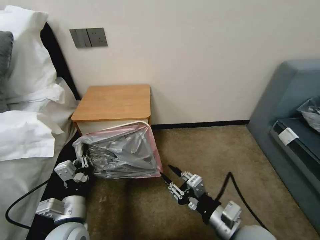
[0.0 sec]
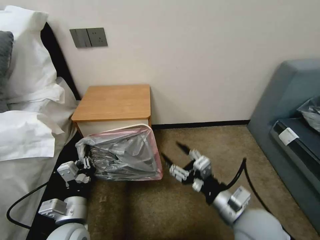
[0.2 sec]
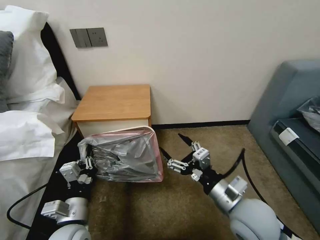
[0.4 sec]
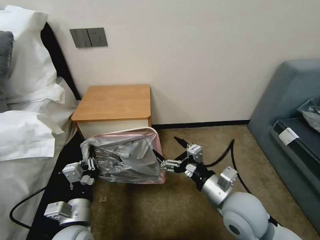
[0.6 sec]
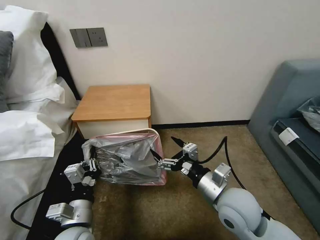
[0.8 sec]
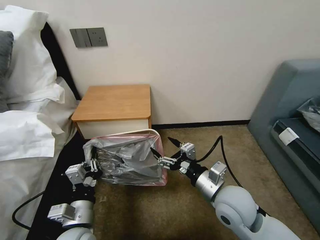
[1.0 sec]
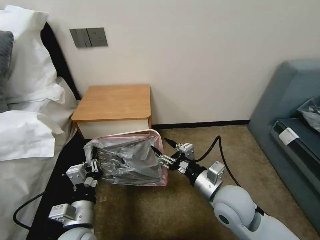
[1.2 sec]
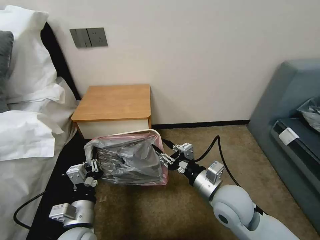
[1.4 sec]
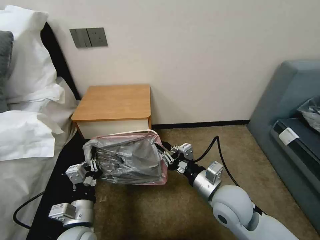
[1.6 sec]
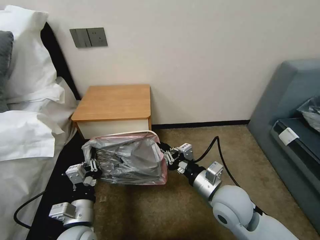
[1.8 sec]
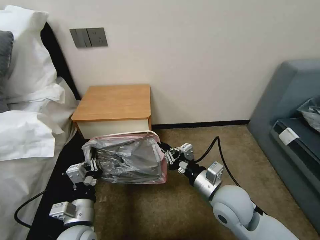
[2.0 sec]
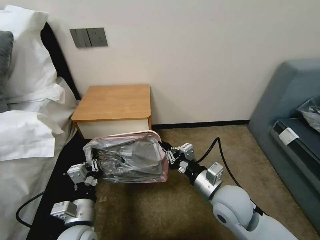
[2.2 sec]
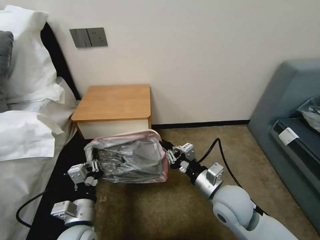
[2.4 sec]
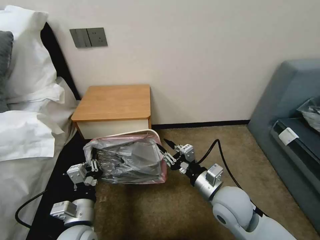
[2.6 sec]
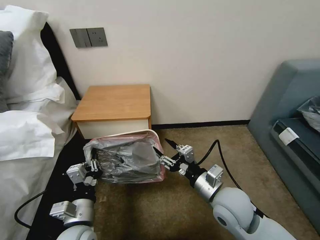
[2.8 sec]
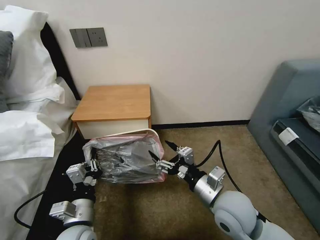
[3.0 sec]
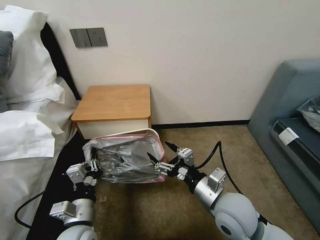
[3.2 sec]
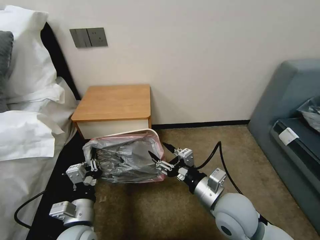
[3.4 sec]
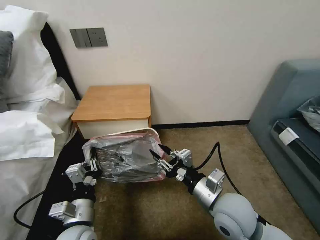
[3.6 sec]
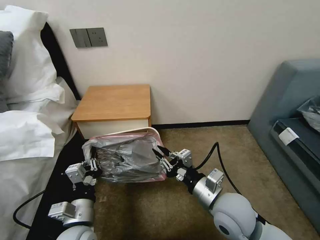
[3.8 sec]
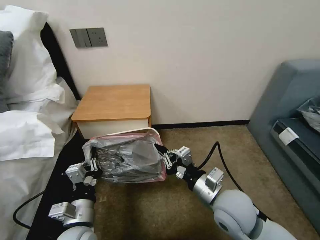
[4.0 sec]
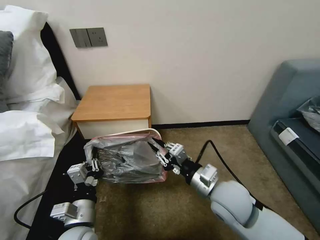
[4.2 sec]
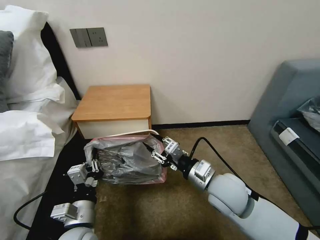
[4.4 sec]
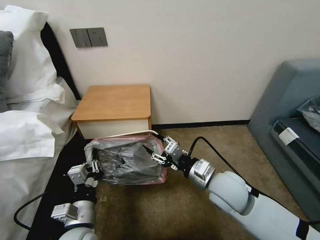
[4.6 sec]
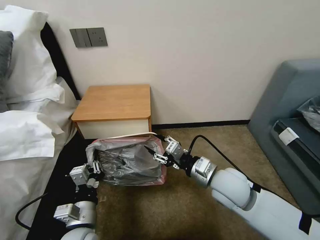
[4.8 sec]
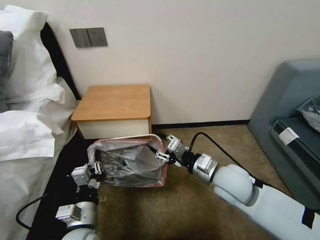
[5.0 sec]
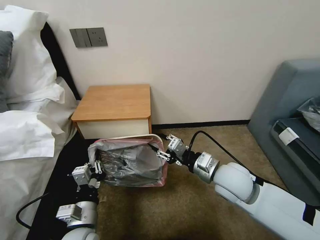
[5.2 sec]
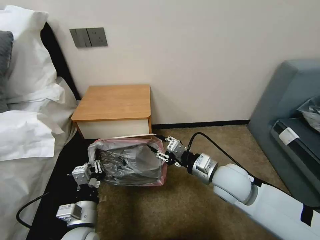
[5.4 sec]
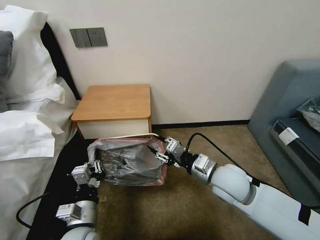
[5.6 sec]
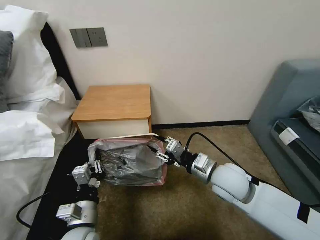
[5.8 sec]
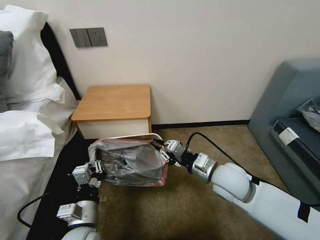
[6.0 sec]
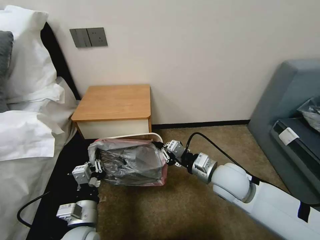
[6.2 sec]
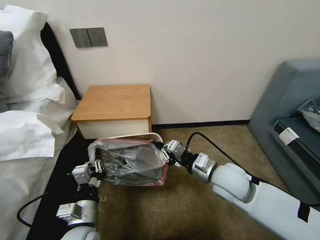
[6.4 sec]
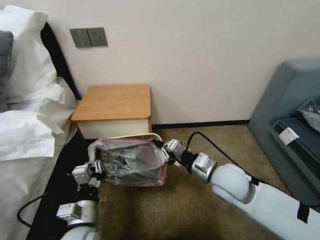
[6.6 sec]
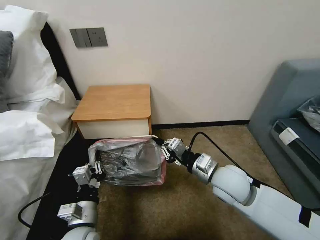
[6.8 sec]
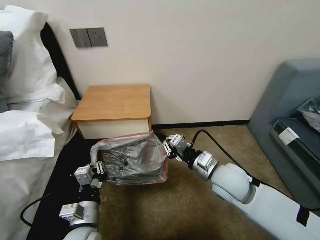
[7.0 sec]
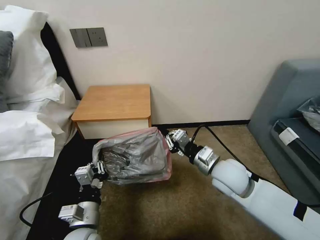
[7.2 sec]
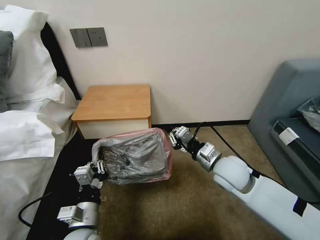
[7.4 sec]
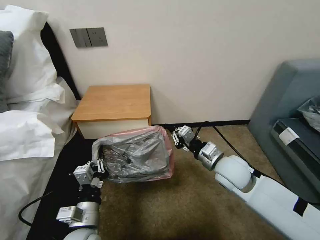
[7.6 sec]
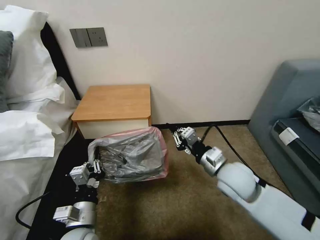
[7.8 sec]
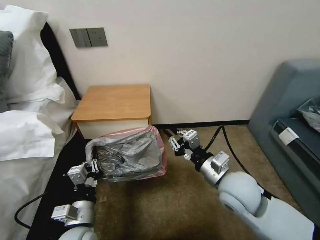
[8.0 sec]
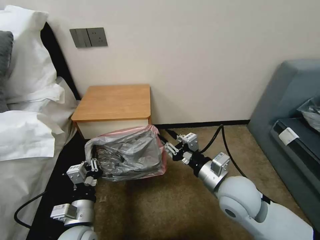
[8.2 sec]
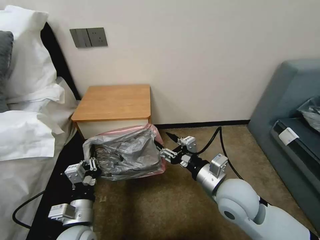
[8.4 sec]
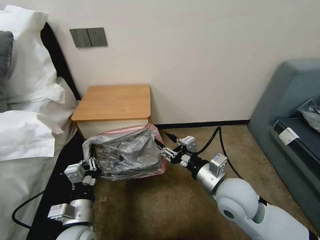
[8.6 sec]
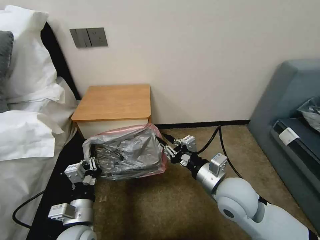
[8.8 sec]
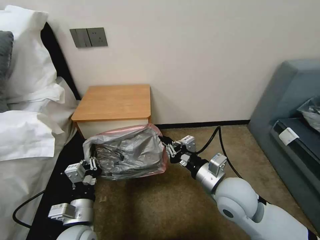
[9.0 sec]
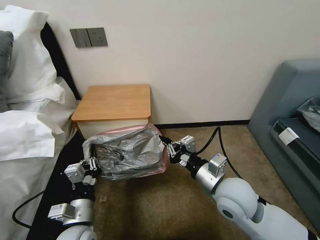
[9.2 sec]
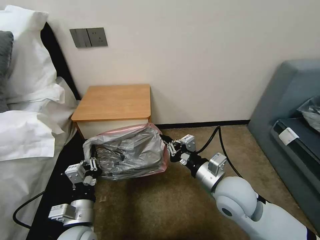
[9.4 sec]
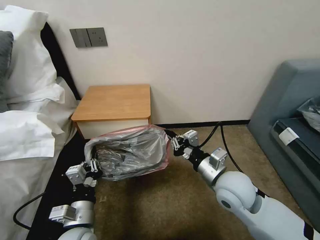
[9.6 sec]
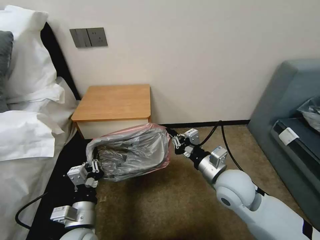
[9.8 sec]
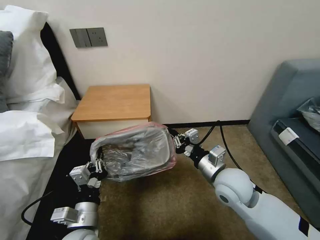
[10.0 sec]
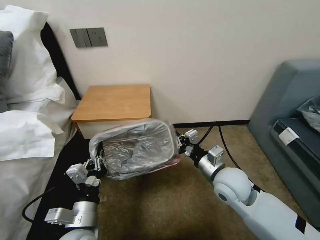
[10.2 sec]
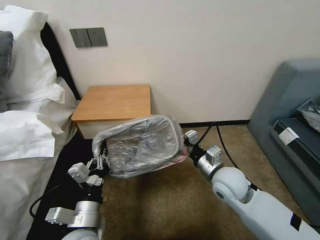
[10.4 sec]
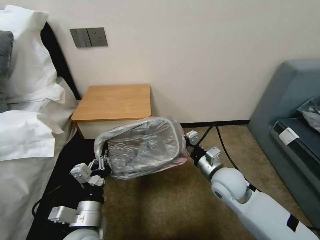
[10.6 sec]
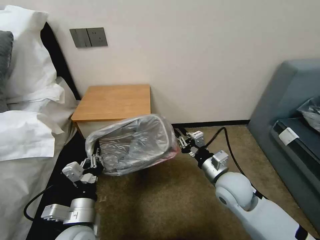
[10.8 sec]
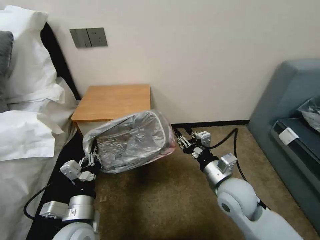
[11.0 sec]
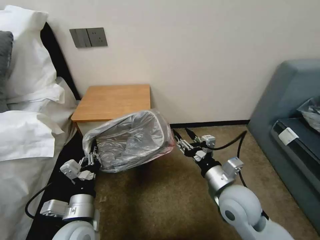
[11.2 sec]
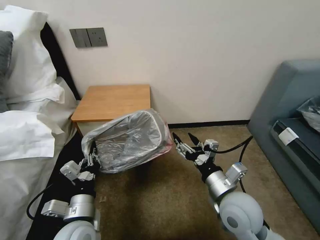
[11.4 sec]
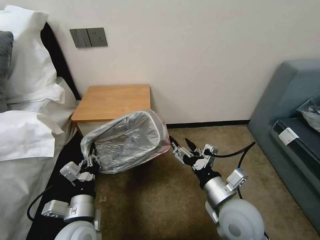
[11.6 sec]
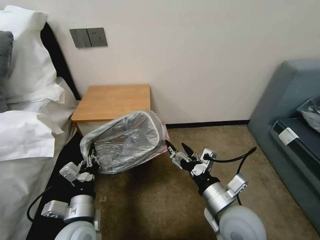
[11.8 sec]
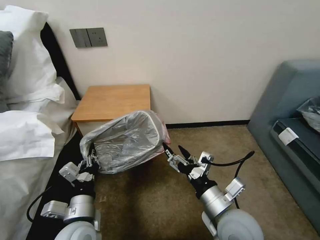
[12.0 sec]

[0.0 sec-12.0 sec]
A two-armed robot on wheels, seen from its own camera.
Task of the whole recording: Pick up the garbage bag from the table and place it over the trash can.
0.0 sec to 1.6 sec: The right gripper moves forward, about 10 cm, and opens, then closes once more.
1.6 sec to 3.0 sec: The right gripper opens.
3.0 sec to 4.4 sec: The right gripper closes up.
4.4 sec to 6.0 sec: The grippers stay close to where they were, moving slightly.
6.0 sec to 7.6 sec: The grippers stay close to where they were, moving slightly.
7.6 sec to 9.0 sec: The right gripper shifts some 10 cm backward, and opens, then closes once more.
9.0 sec to 10.4 sec: The right gripper is displaced forward by roughly 5 cm.
10.4 sec to 12.0 sec: The right gripper moves backward, roughly 10 cm, and opens its fingers.

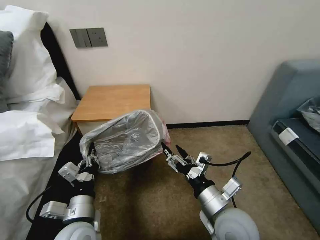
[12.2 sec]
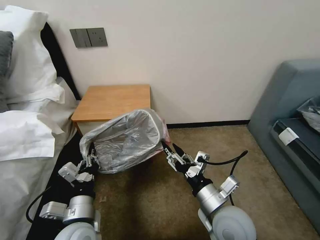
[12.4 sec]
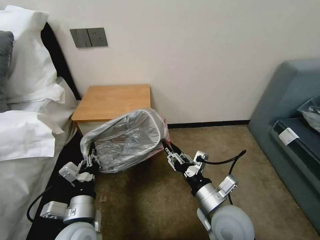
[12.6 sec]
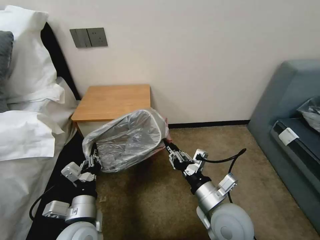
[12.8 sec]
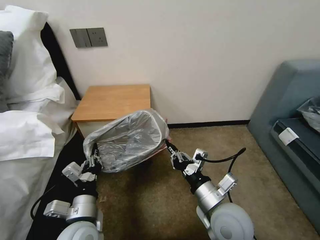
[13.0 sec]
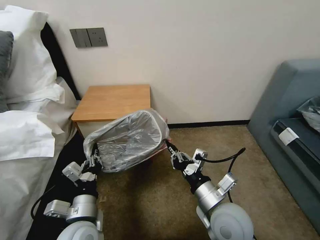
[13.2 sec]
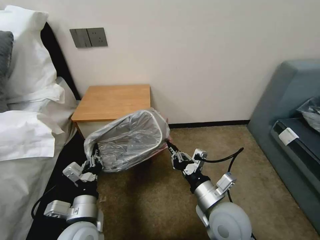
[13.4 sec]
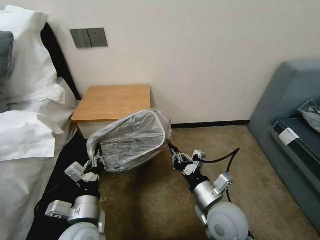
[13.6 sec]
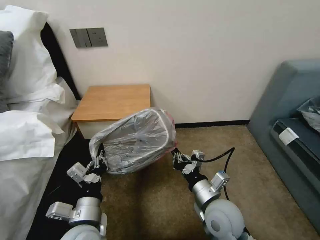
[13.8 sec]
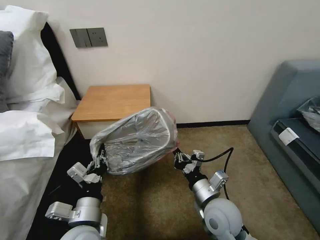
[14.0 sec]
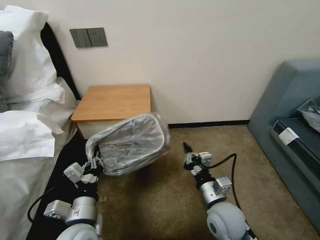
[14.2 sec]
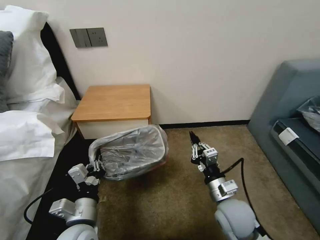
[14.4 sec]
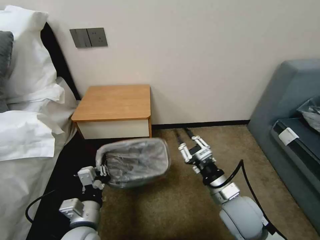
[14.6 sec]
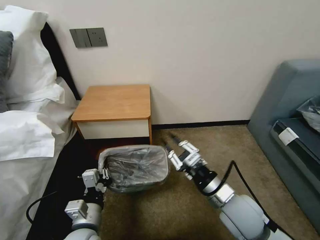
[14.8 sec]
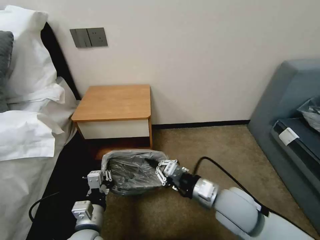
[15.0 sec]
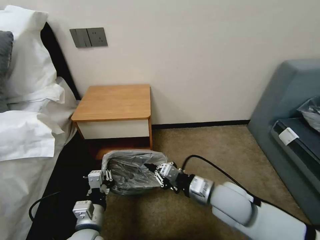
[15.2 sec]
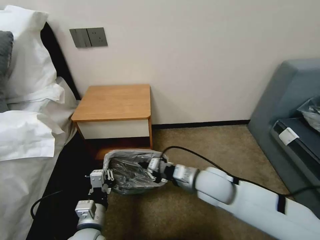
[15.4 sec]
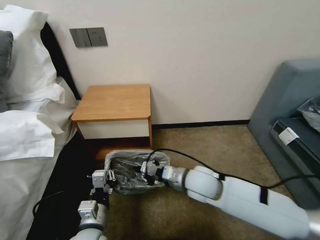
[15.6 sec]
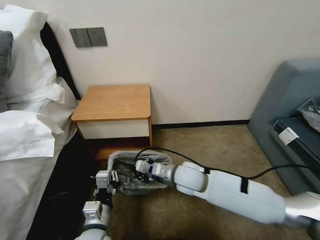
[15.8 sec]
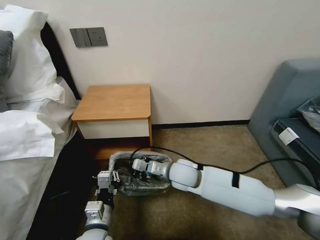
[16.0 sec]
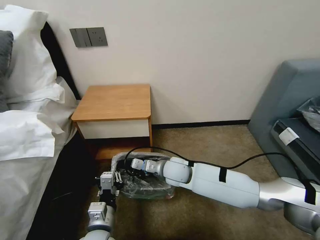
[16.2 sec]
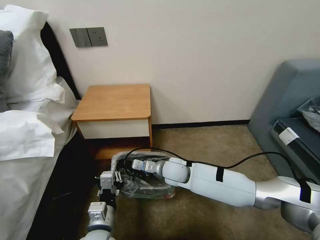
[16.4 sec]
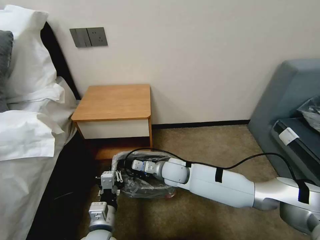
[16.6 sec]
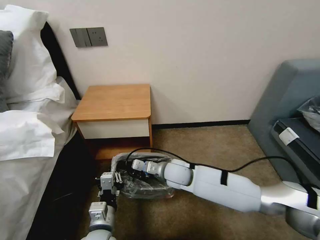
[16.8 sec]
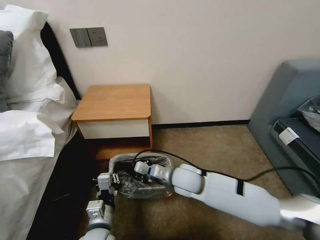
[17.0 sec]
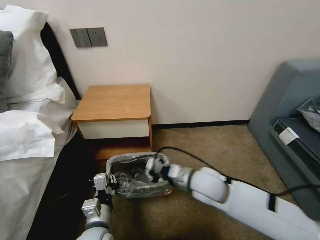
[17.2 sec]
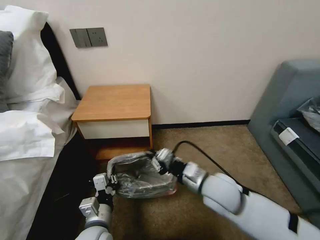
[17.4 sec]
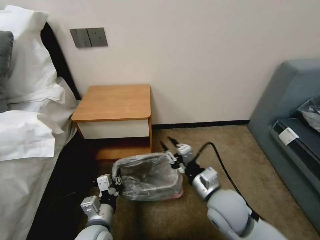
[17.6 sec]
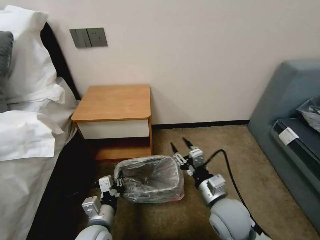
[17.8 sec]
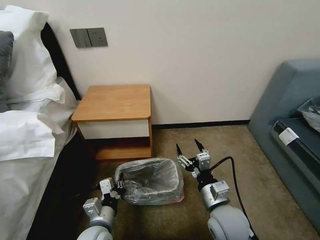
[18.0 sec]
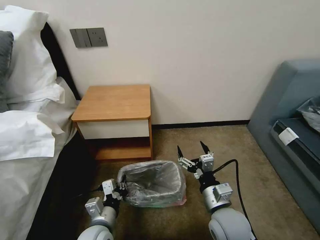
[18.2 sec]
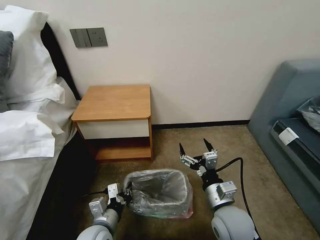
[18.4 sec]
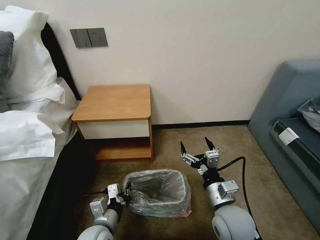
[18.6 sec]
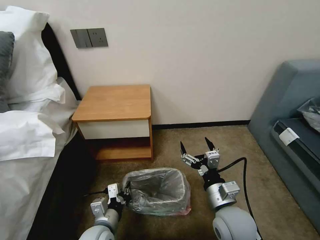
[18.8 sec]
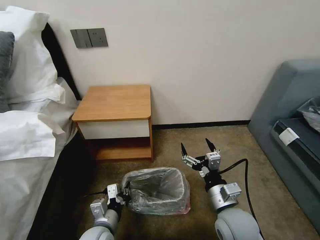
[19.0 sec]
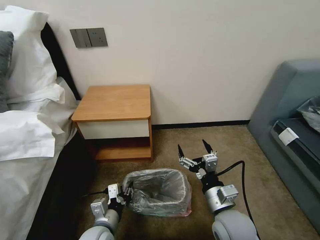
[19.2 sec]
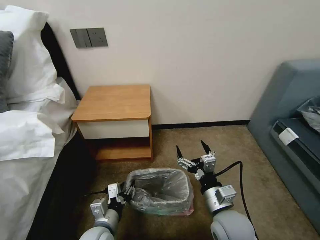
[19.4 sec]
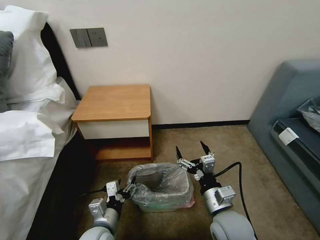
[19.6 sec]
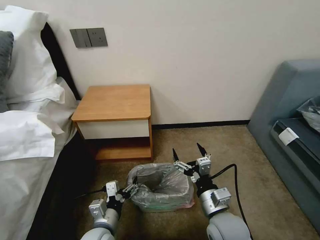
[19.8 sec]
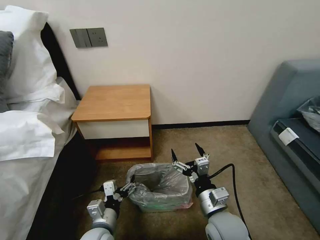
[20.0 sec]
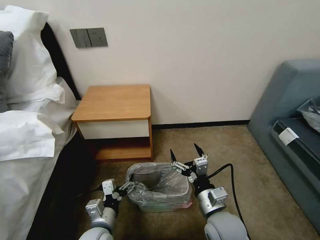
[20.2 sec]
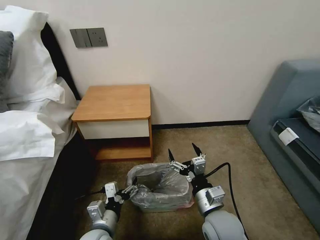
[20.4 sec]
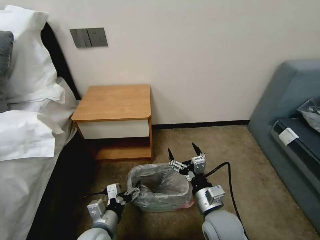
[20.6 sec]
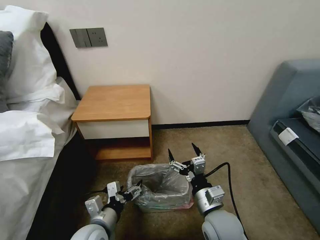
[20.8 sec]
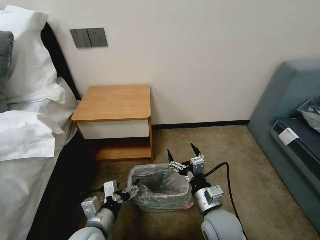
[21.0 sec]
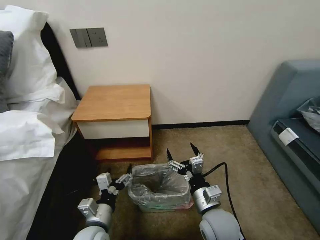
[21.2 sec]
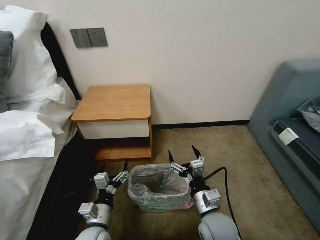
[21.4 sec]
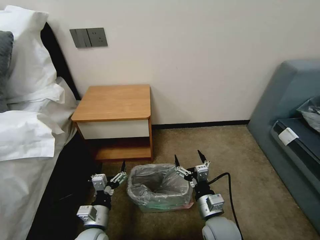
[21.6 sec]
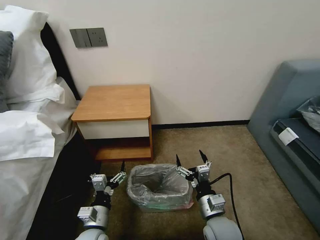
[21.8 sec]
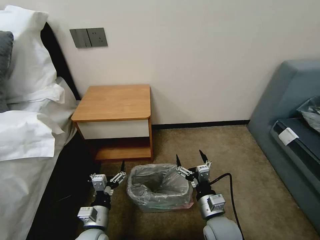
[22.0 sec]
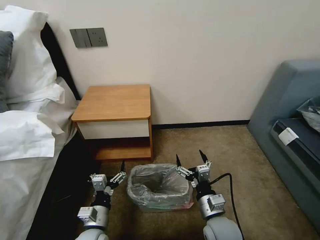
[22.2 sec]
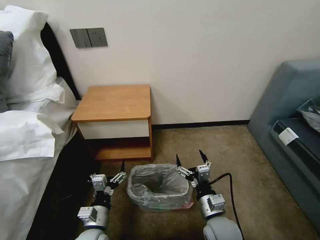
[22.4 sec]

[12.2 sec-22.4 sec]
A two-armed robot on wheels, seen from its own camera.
Task of the whole recording: Pick up the garbage bag from the table and place it over the trash can.
12.2 sec to 13.6 sec: The right gripper closes.
13.6 sec to 15.2 sec: The right gripper moves some 5 cm downward and comes back.
15.2 sec to 16.6 sec: The right gripper is displaced to the left, forward and downward by approximately 20 cm.
16.6 sec to 18.0 sec: The right gripper goes roughly 20 cm backward and to the right, and opens its fingers.
18.0 sec to 19.4 sec: The left gripper opens up.
19.4 sec to 21.0 sec: The left gripper opens its fingers.
21.0 sec to 22.4 sec: The left gripper is displaced downward by some 5 cm.
